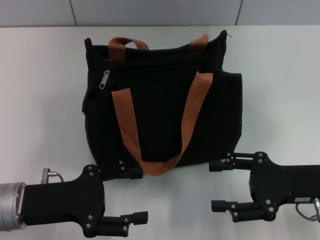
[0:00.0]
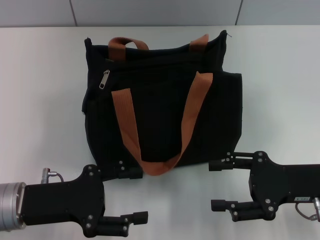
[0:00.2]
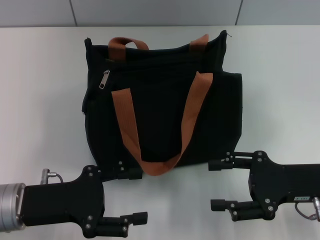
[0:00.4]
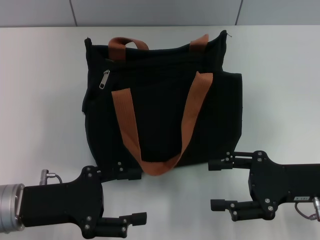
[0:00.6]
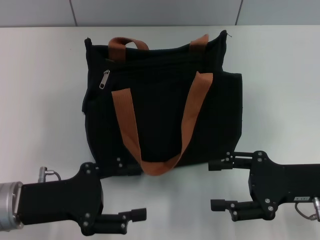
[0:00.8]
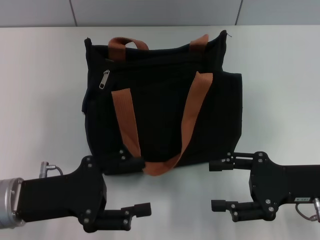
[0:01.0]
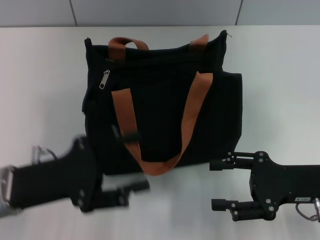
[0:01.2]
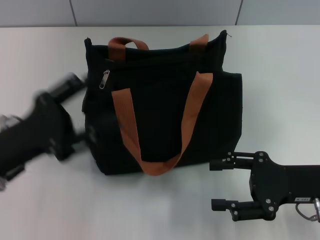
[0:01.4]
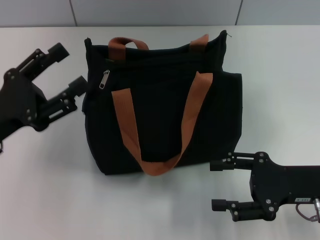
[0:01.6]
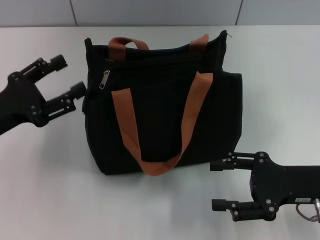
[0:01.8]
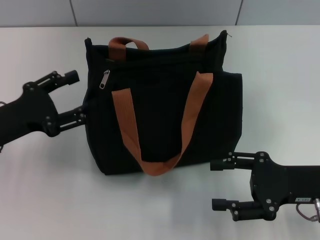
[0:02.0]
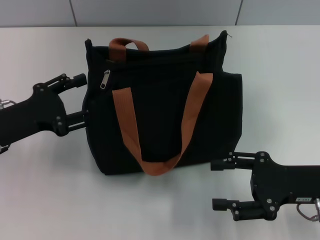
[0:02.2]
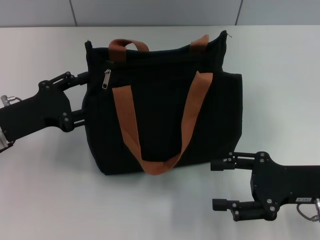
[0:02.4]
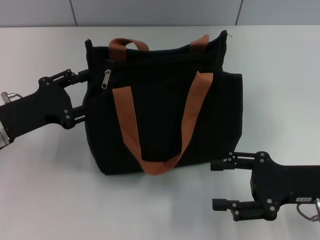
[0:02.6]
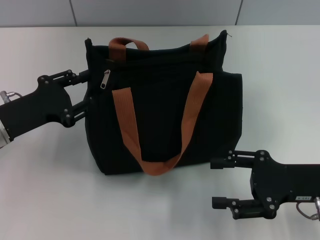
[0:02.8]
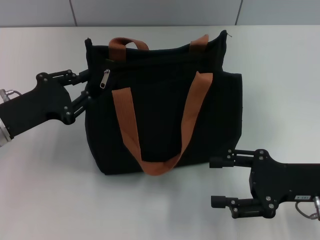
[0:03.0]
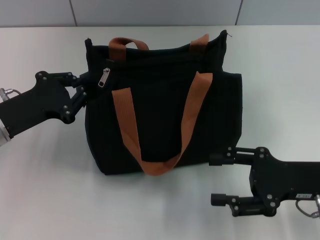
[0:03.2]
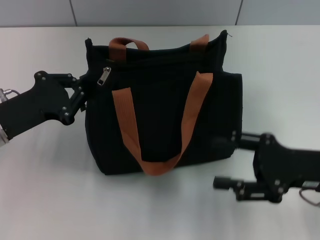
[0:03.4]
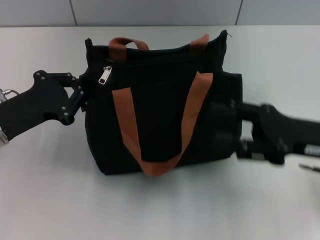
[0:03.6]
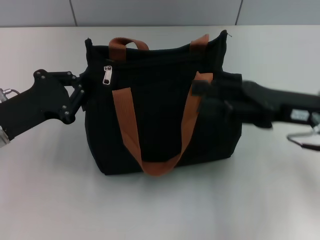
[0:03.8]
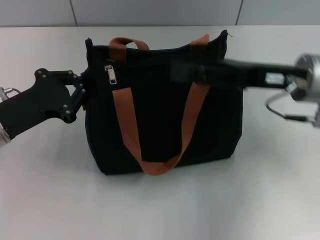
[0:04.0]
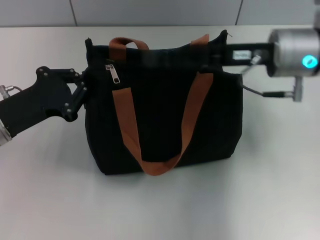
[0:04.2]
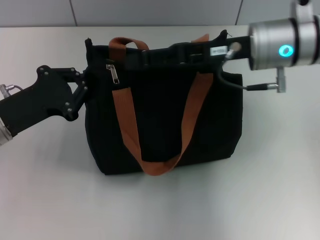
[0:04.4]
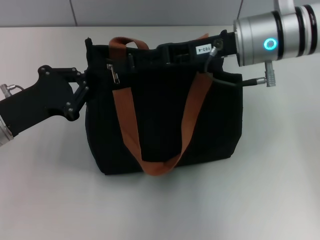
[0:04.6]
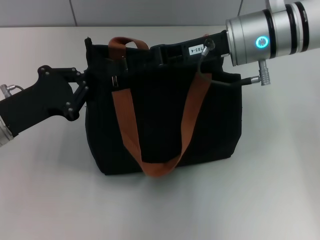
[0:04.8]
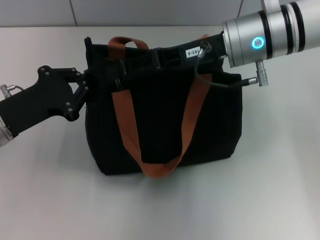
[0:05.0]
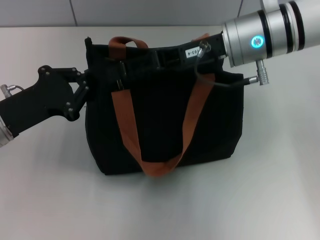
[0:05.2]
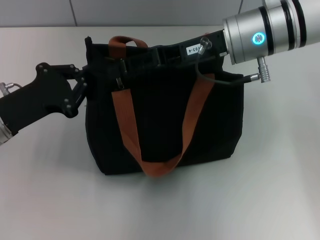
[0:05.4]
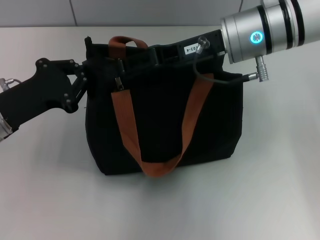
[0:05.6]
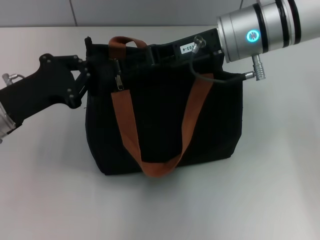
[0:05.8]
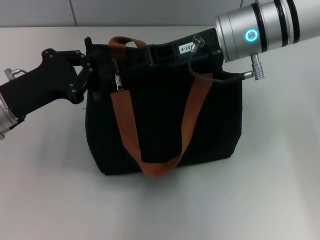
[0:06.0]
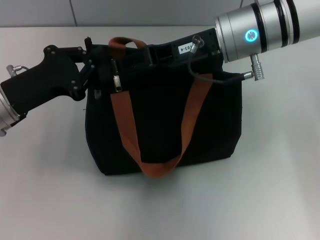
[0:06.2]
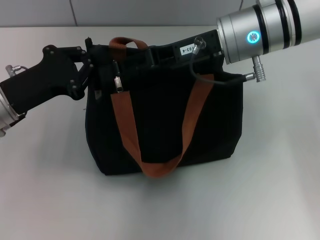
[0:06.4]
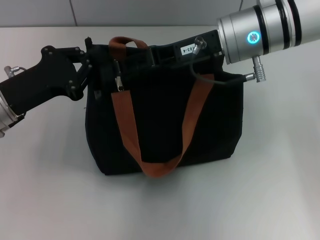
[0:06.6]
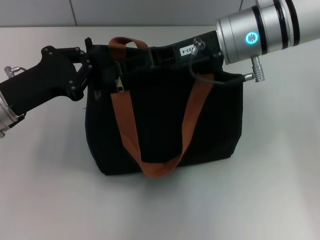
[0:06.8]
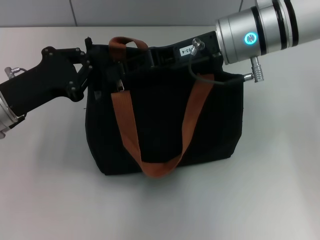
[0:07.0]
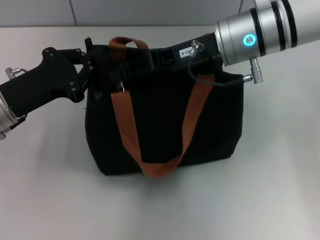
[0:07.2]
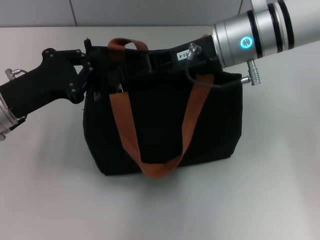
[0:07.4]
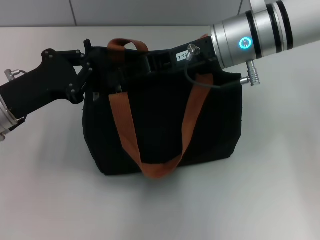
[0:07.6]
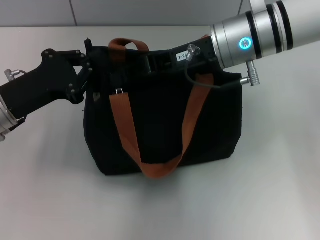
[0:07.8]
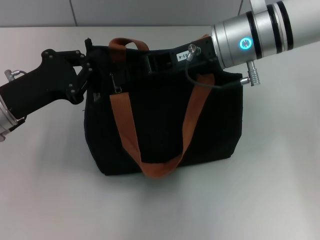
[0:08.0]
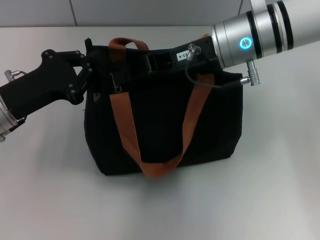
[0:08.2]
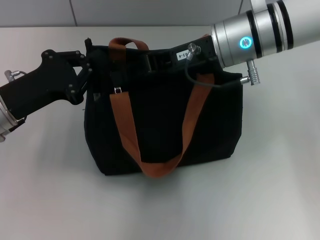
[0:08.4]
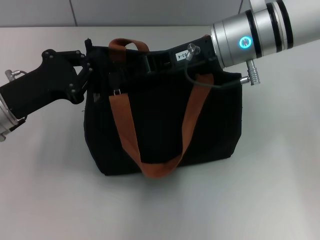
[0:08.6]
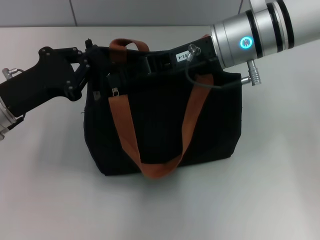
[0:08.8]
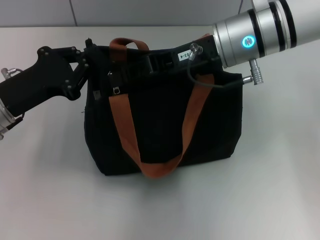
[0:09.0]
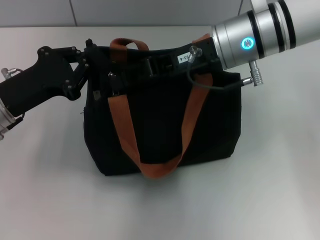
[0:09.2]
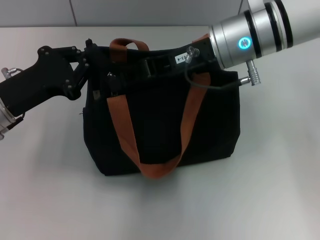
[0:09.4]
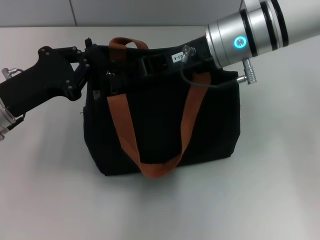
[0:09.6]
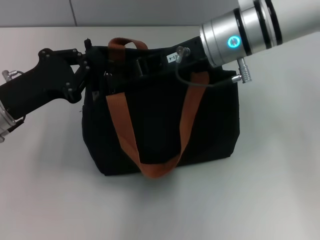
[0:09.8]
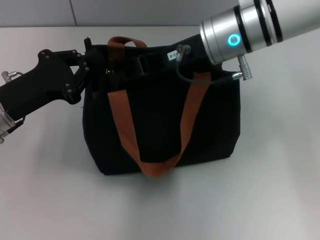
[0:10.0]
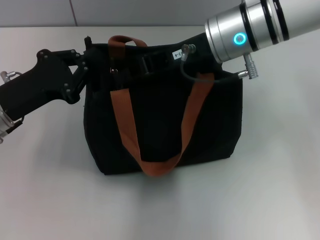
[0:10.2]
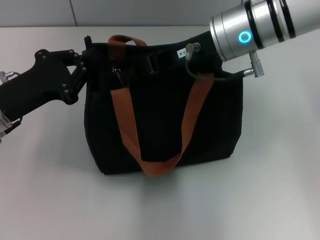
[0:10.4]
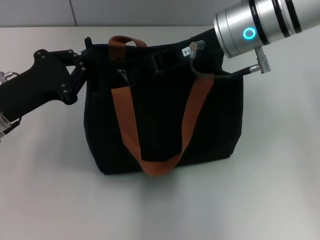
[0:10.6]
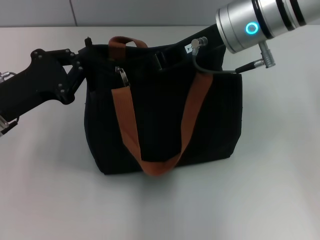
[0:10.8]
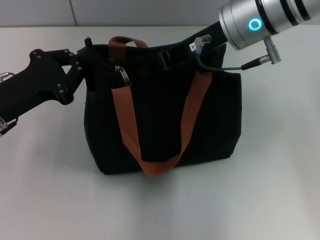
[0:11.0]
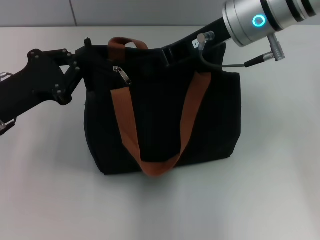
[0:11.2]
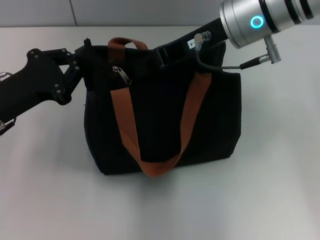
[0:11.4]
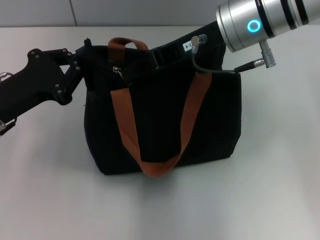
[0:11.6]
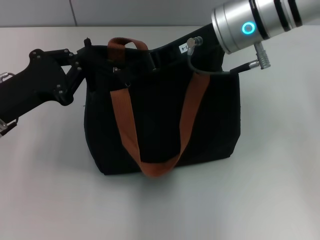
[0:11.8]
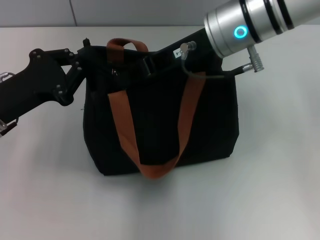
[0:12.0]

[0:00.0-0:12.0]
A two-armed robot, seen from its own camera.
0:00.0 to 0:01.6: The left gripper changes place by approximately 5 cm.
0:01.6 to 0:03.0: The left gripper changes place by roughly 5 cm, and closes.
0:03.0 to 0:04.4: The right gripper shifts about 20 cm forward, upward and to the left; the left gripper closes.
0:04.4 to 0:06.0: The grippers move only a little.
0:06.0 to 0:07.6: The right gripper closes.
0:07.6 to 0:09.0: Both grippers stay about where they are.
0:09.0 to 0:10.4: The grippers make only small movements.
0:10.4 to 0:12.0: The grippers move only a little.

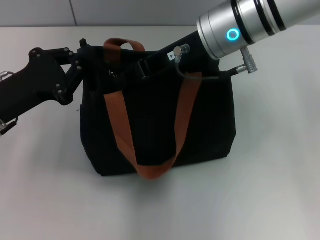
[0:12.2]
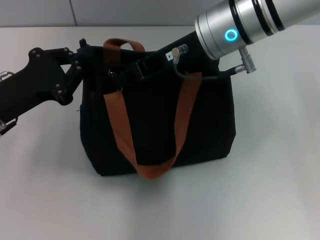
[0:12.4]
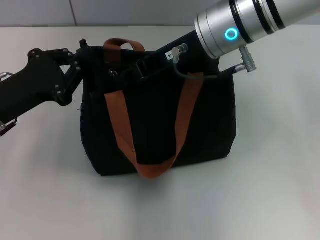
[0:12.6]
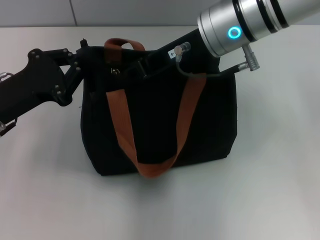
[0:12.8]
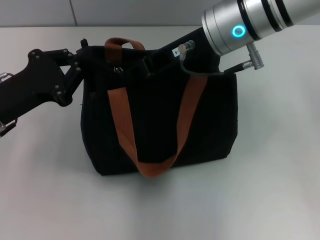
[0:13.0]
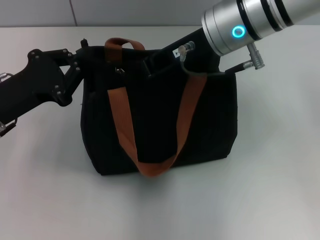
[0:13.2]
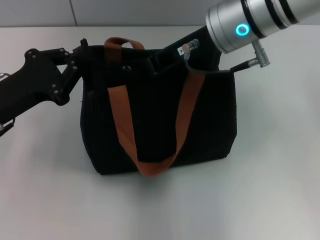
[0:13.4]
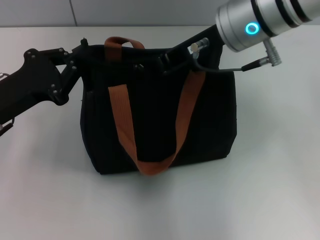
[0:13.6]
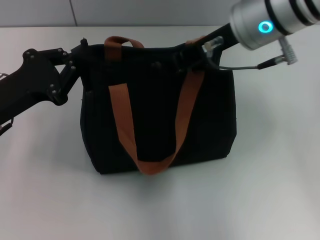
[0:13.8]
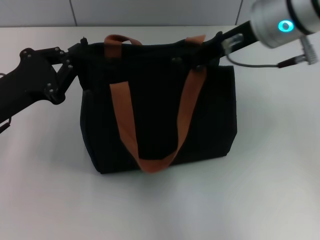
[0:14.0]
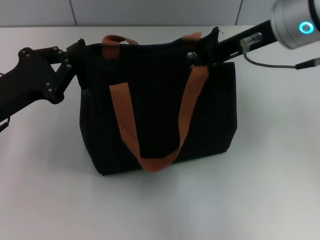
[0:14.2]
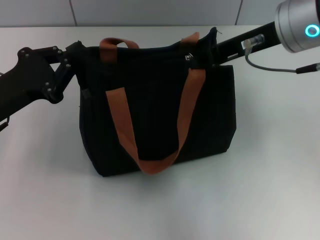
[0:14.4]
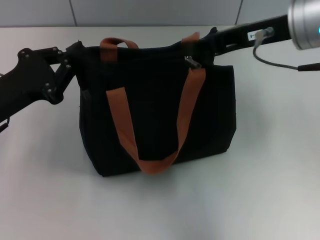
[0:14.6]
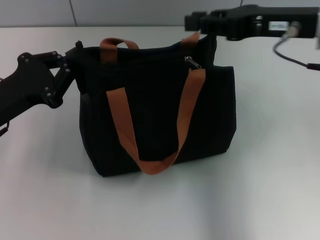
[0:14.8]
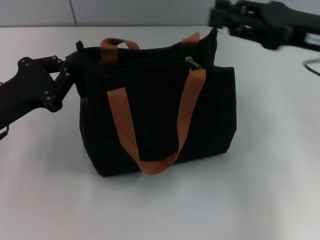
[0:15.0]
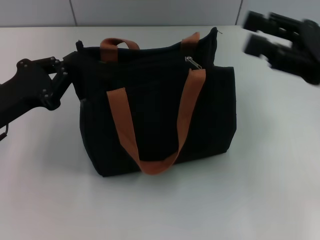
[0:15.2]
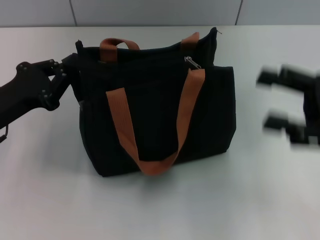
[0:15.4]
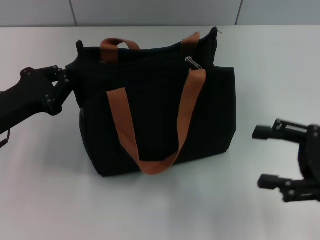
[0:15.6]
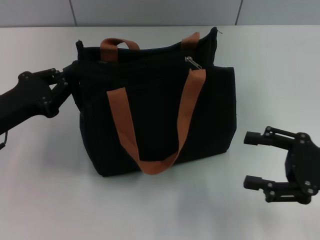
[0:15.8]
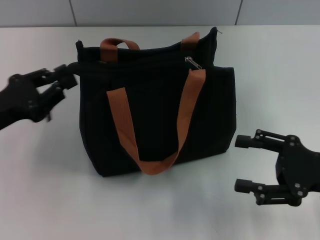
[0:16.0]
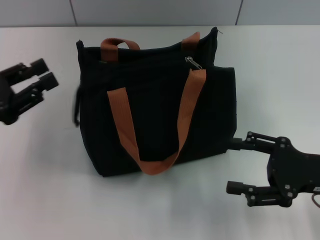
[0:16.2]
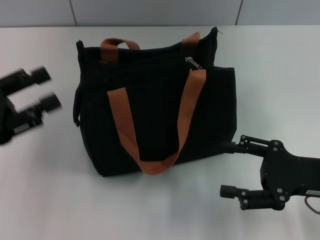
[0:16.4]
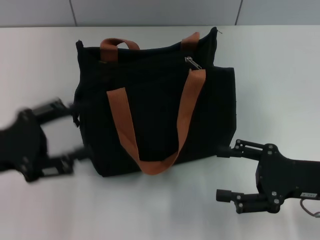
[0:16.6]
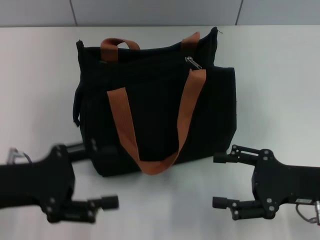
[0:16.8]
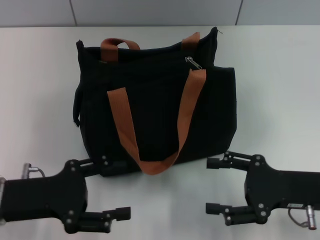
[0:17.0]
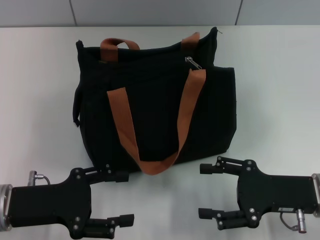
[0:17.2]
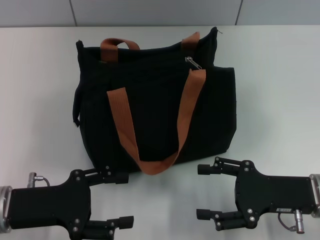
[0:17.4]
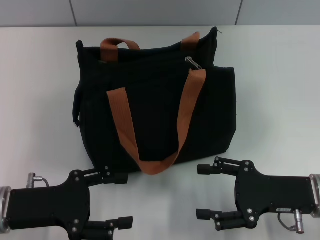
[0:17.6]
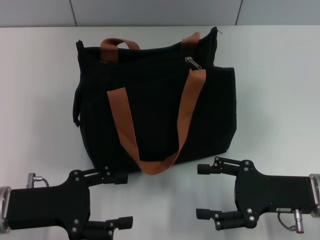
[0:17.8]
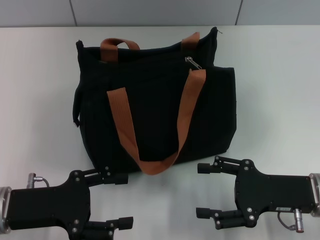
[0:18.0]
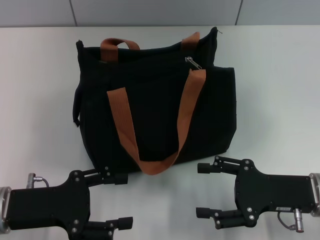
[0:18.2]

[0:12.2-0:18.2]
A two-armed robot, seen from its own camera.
Step, 0:12.2 to 0:14.8: Pull up the zipper with your right hand.
Step, 0:15.0 to 0:16.4: Grab the zipper with your left hand.
0:12.2 to 0:13.8: There are only small adjustments of the grippers.
0:13.8 to 0:15.2: The right gripper travels to the right, backward and downward by about 20 cm, and opens its fingers.
0:15.2 to 0:16.6: The right gripper travels downward and backward by about 10 cm, and opens its fingers, while the left gripper opens.
0:16.6 to 0:18.2: The left gripper heads downward, covering about 5 cm.
